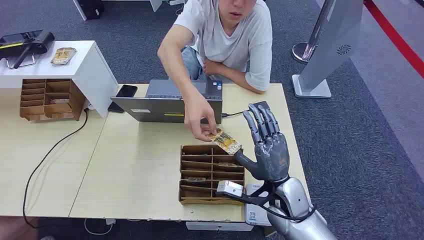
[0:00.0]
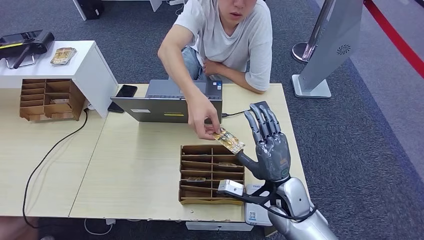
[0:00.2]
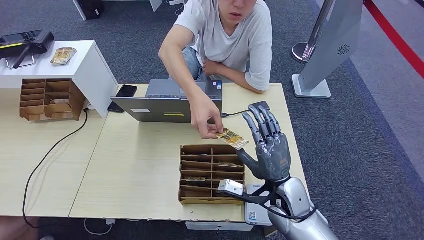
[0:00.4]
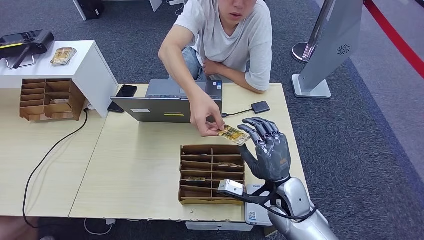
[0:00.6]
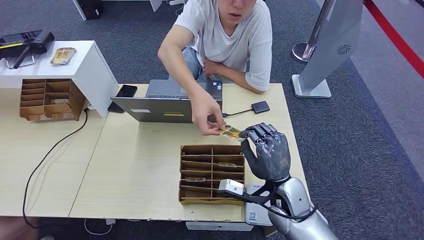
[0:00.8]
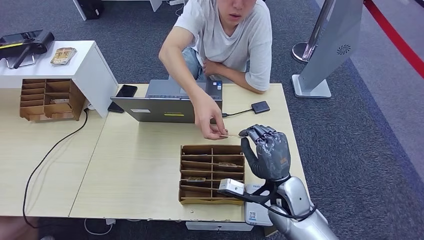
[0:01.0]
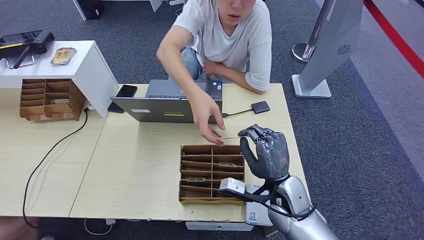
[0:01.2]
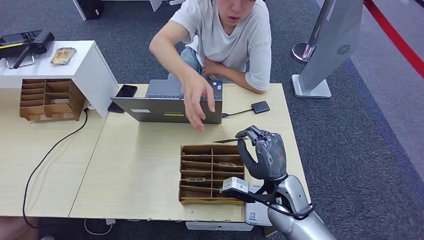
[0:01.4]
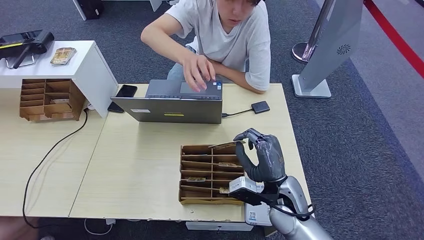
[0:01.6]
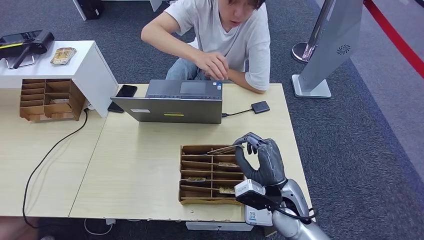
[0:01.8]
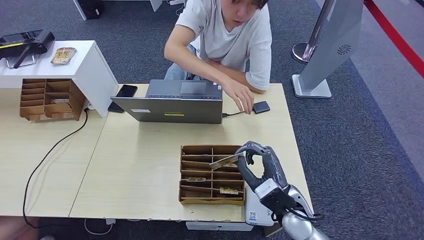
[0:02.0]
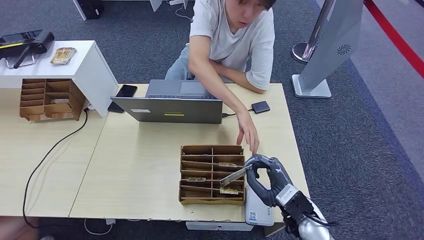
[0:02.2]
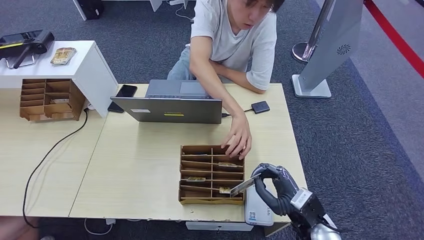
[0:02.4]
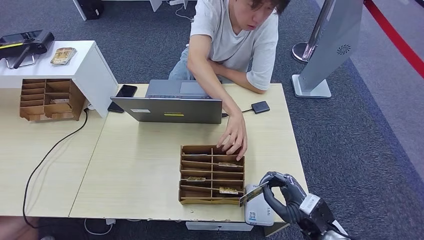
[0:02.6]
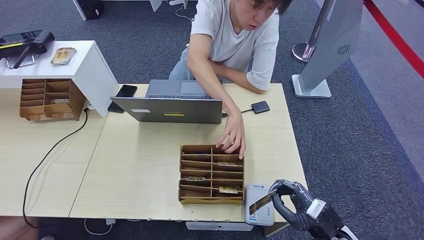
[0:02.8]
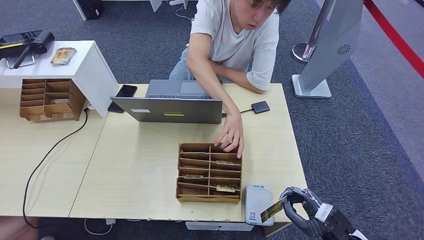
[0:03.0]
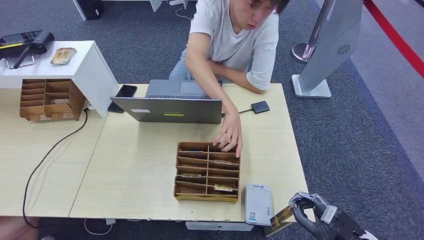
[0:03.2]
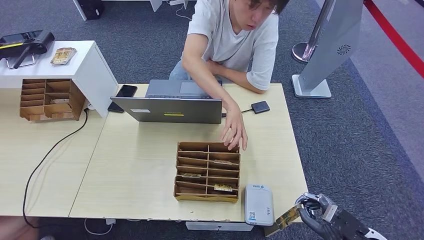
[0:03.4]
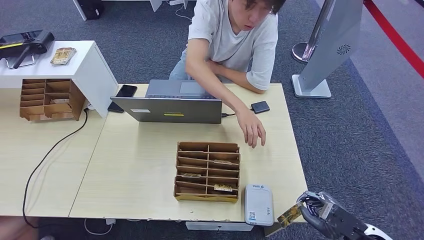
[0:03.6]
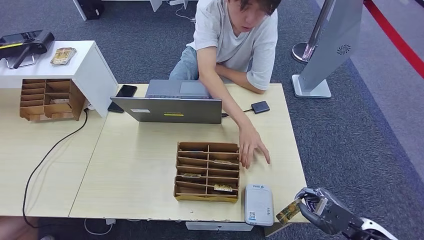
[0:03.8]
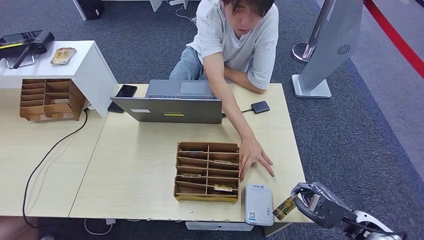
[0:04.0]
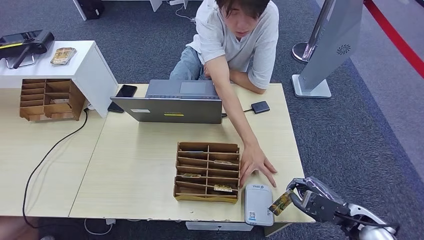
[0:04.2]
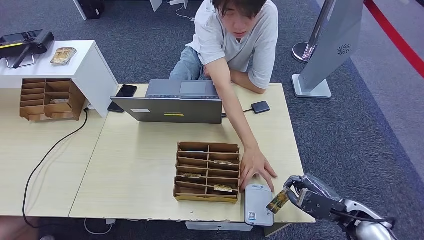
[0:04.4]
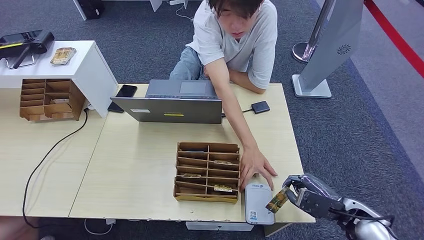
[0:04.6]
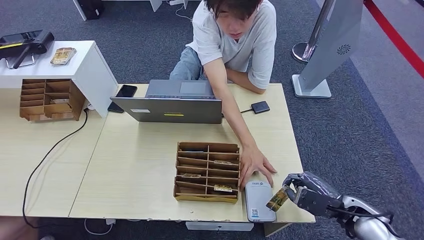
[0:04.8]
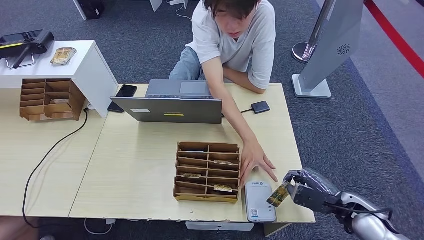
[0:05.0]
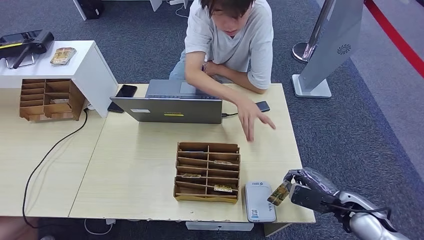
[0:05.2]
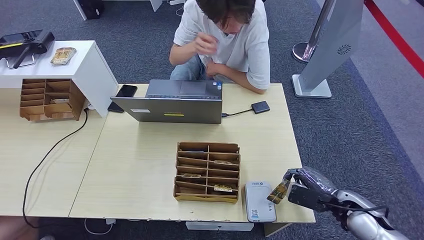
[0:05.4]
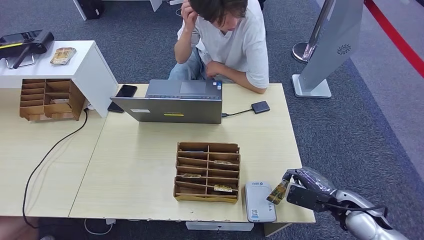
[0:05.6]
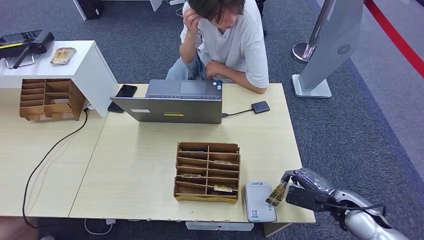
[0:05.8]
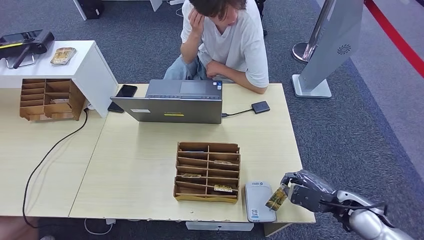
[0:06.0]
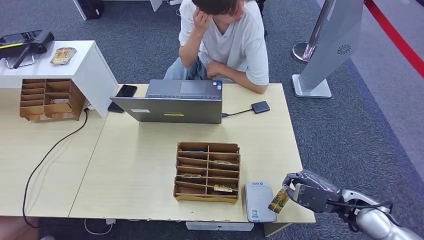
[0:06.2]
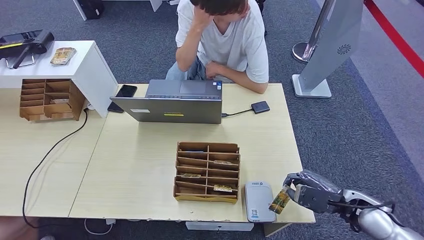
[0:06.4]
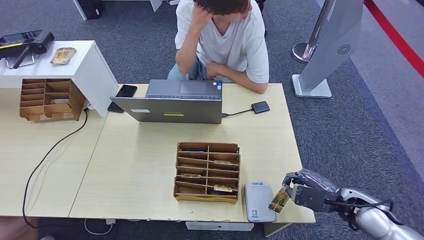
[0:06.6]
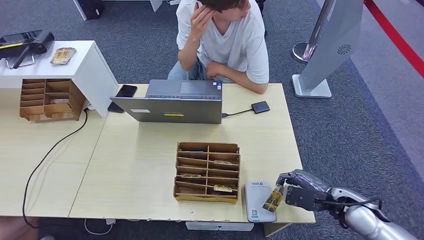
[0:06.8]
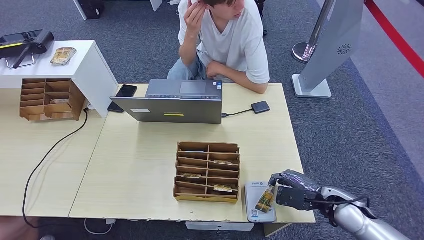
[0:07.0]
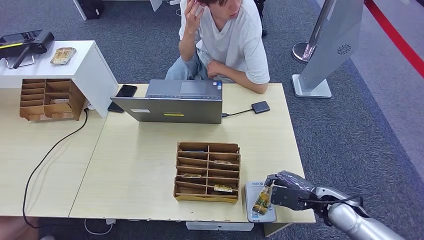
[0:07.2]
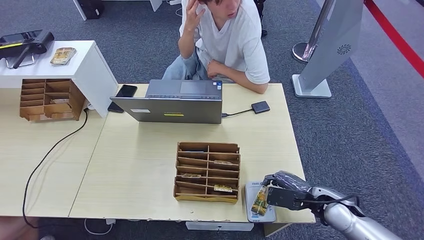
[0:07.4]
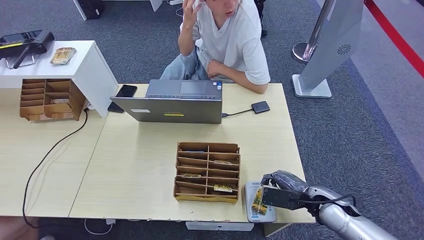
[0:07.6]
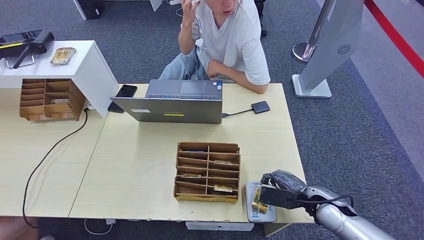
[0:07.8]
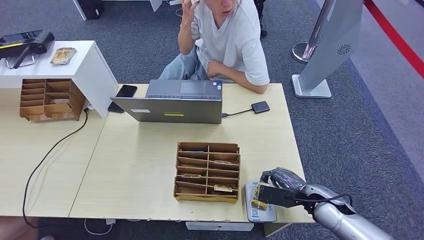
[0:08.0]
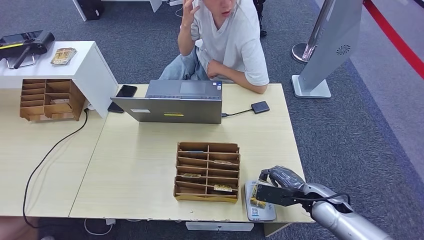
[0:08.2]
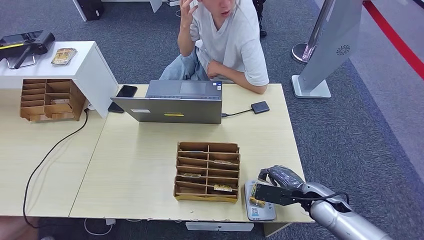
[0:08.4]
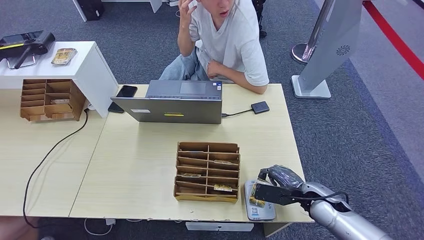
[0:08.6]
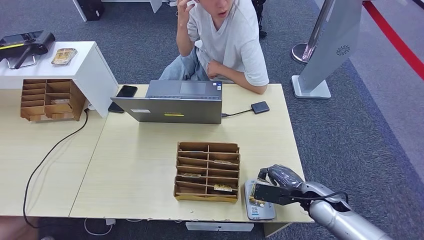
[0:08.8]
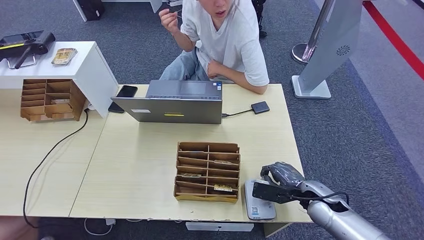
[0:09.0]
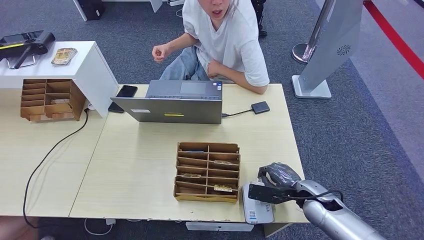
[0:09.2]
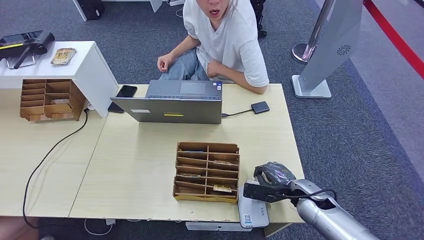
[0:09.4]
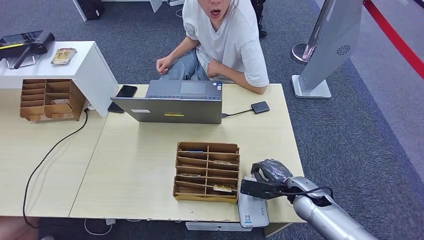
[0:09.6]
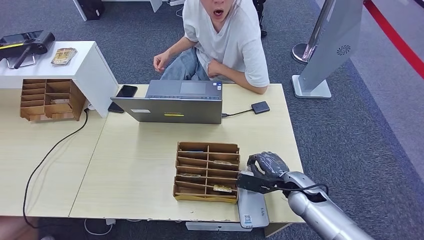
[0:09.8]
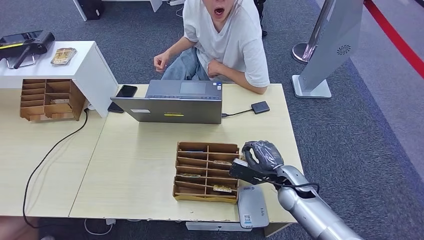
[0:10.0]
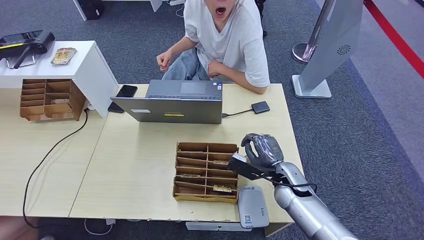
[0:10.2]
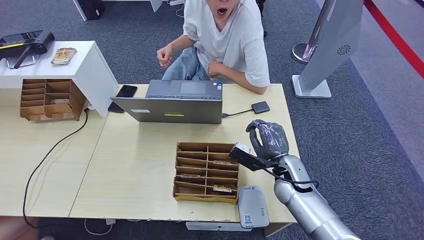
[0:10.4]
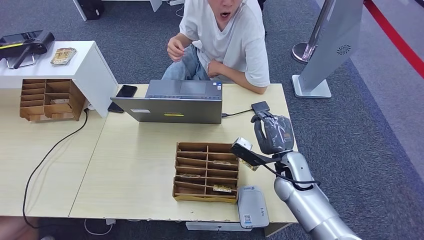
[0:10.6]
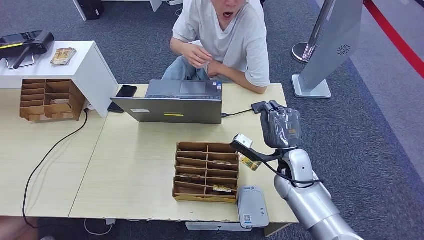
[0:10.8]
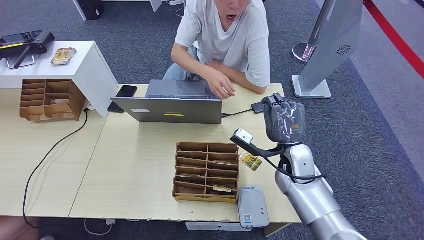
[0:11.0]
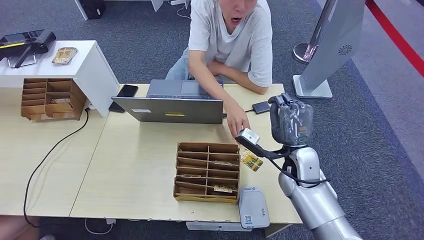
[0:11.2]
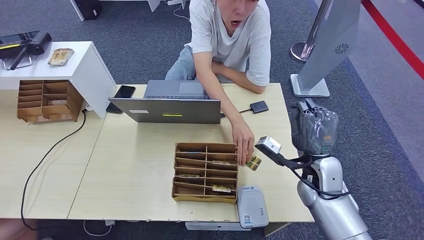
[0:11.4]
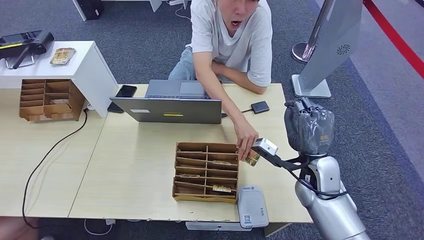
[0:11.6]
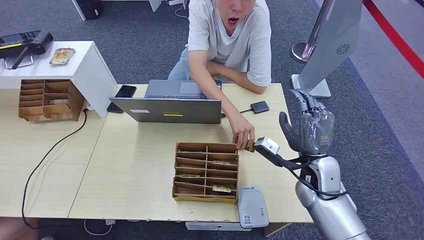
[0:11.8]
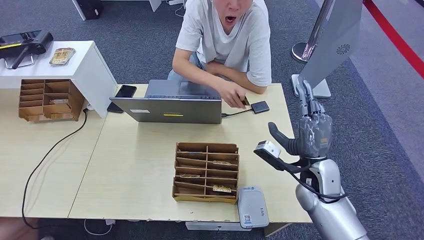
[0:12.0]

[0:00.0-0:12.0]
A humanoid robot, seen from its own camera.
Step, 0:00.0 to 0:02.6: Take the ID card from the person's hand.
Step, 0:03.0 to 0:05.4: Place the ID card on the card reader.
Step, 0:05.8 to 0:10.2: Hand the ID card to the person.
0:01.6 to 0:03.0: The right hand shifts about 20 cm to the right and backward.
0:03.0 to 0:04.4: The right hand is displaced forward by about 5 cm.
0:04.4 to 0:06.0: The hands make only small movements.
0:06.0 to 0:07.6: The right hand heads to the left, covering some 5 cm.
0:07.6 to 0:09.0: There are only small adjustments of the hands.
0:09.0 to 0:10.4: The right hand goes approximately 10 cm to the left.
0:10.4 to 0:12.0: The right hand shifts approximately 5 cm upward.

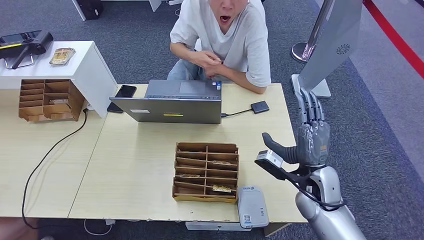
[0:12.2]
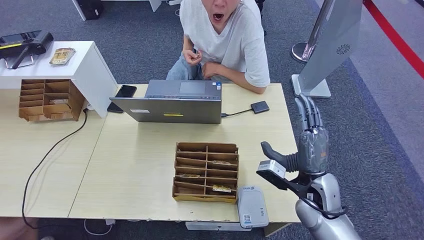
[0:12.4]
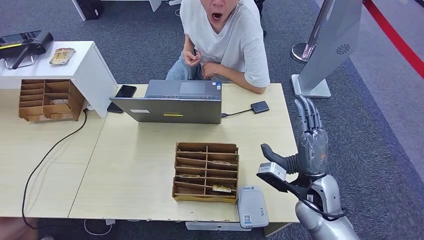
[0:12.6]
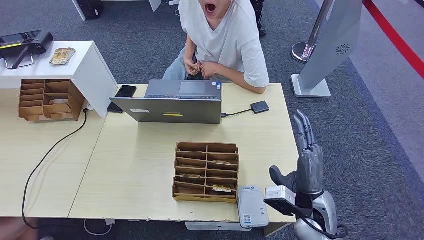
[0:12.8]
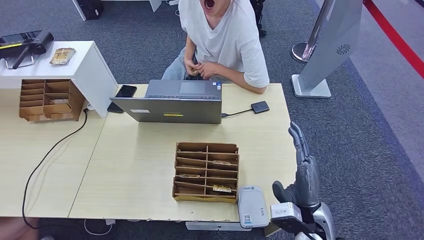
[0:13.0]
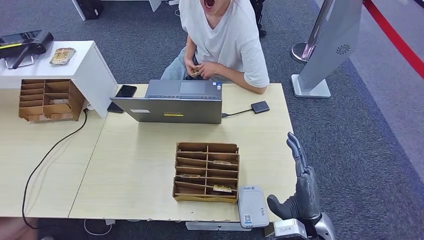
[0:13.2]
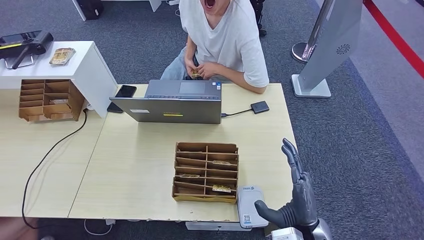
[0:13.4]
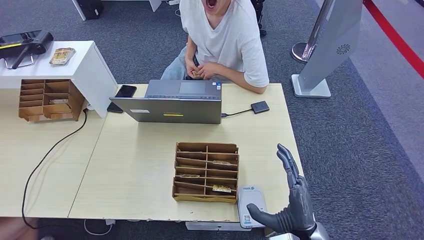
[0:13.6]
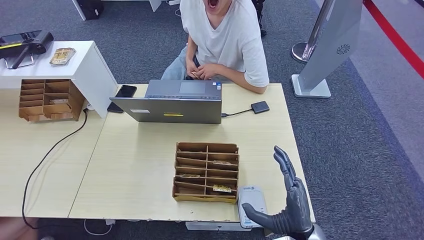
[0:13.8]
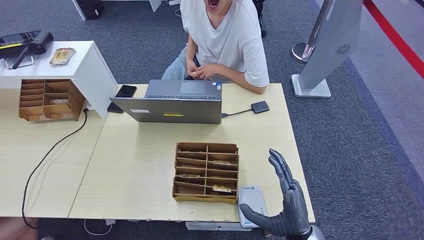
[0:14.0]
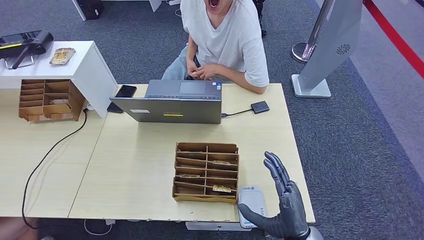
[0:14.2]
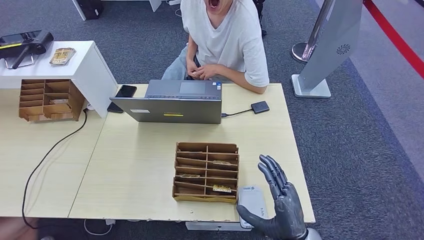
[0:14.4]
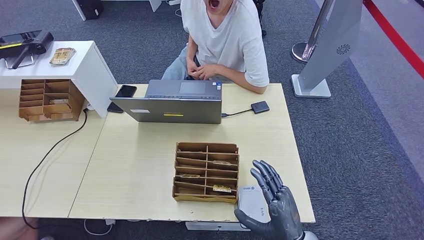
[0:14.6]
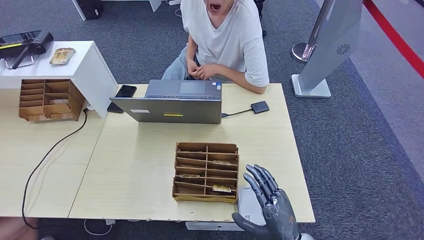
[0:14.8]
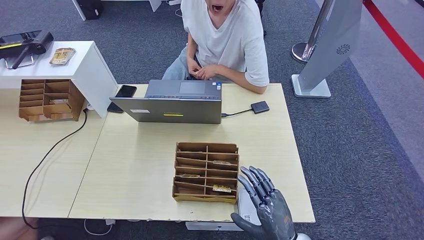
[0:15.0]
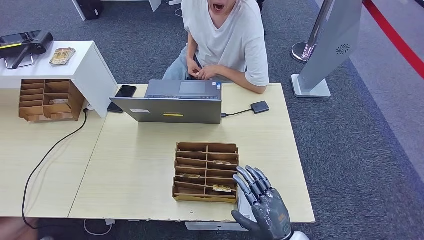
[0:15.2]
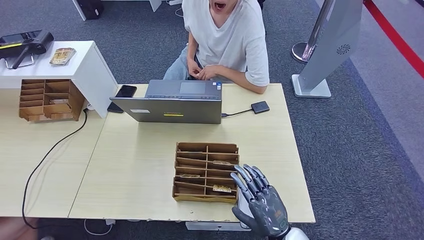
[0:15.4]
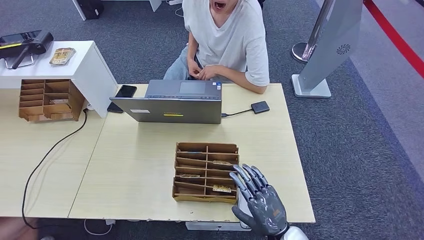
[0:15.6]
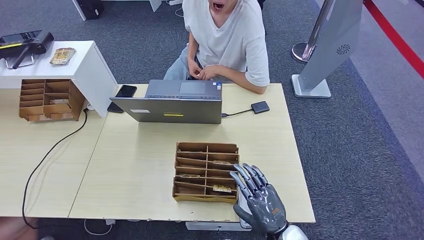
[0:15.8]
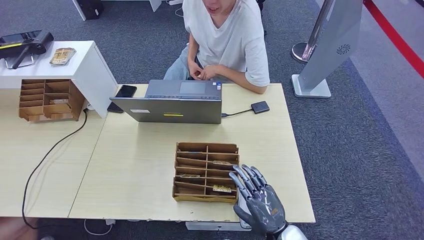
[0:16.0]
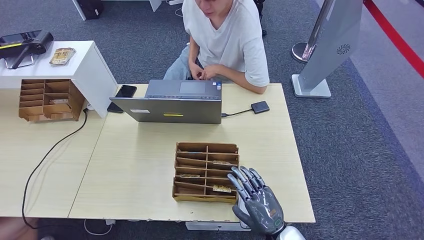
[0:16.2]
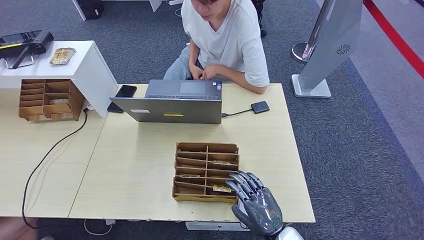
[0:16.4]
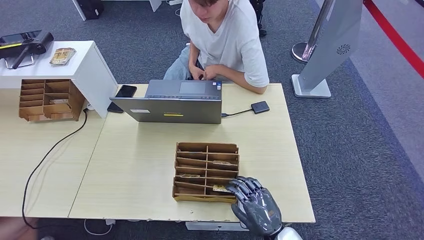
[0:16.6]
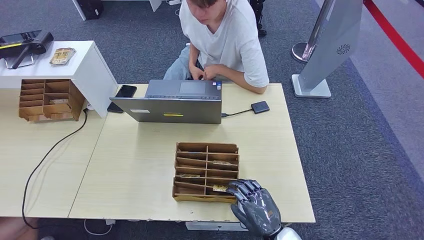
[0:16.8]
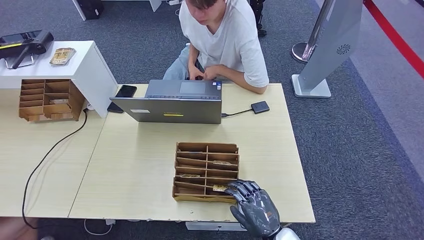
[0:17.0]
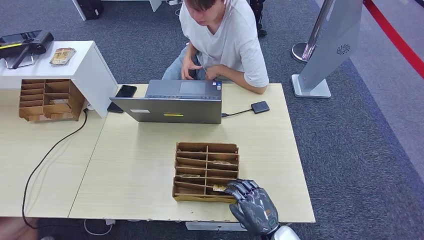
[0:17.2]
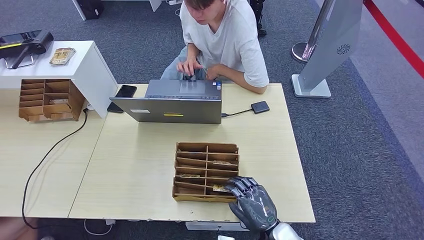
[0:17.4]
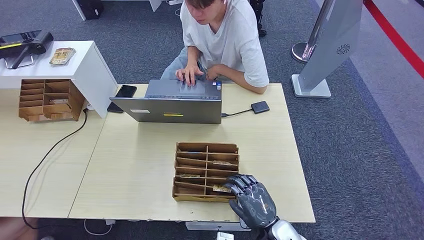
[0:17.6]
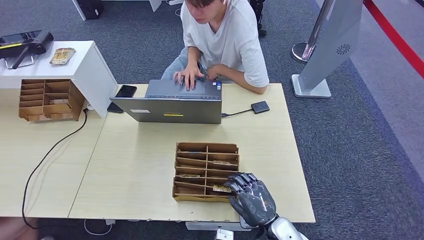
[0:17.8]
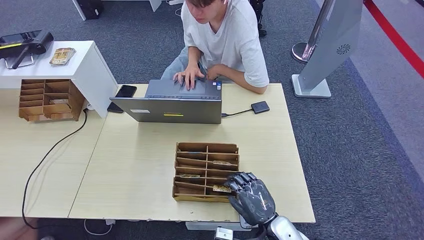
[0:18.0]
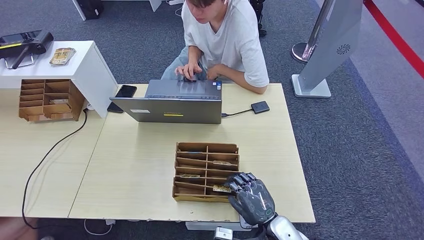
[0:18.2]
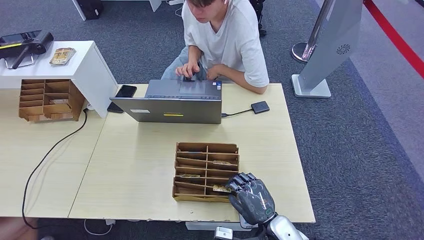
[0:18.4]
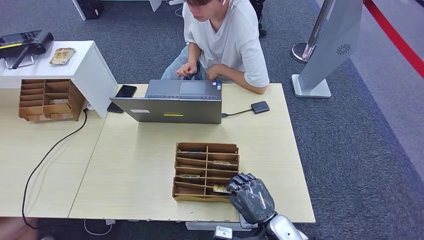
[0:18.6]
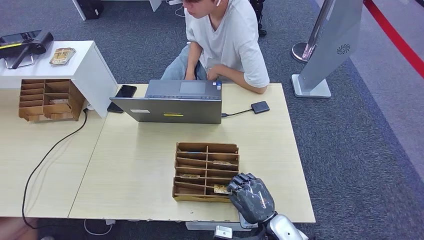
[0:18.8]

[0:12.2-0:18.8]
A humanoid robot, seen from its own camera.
0:12.2 to 0:13.8: The right hand moves backward, roughly 15 cm. Meanwhile the left hand moves to the right, approximately 5 cm.
0:15.4 to 0:18.8: The hands move only a little.
